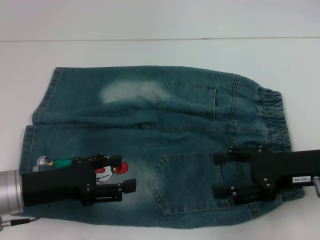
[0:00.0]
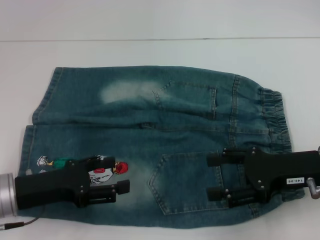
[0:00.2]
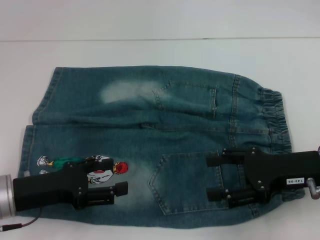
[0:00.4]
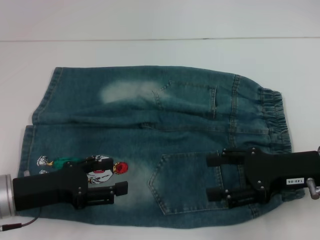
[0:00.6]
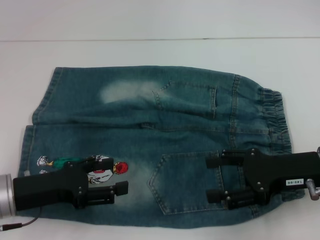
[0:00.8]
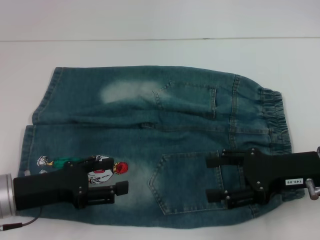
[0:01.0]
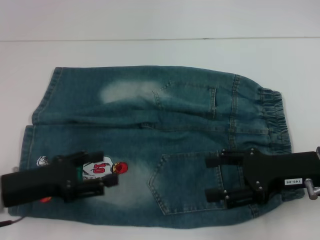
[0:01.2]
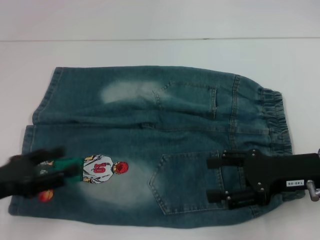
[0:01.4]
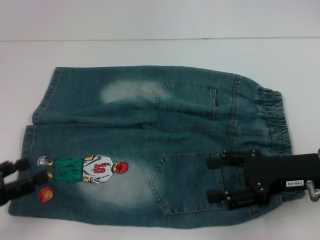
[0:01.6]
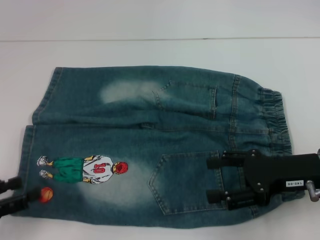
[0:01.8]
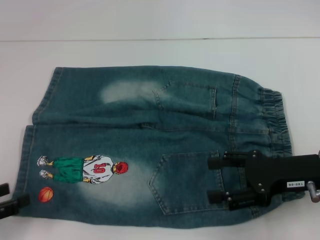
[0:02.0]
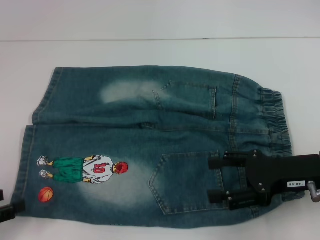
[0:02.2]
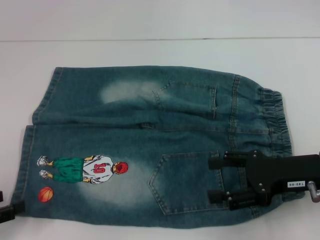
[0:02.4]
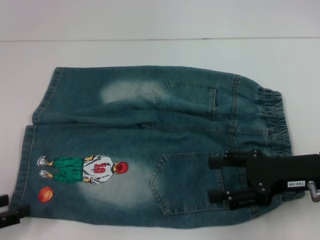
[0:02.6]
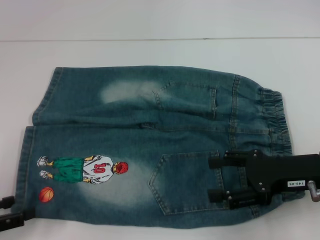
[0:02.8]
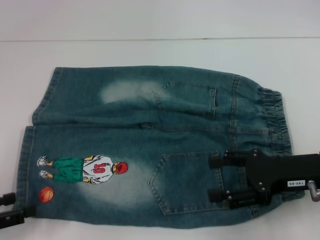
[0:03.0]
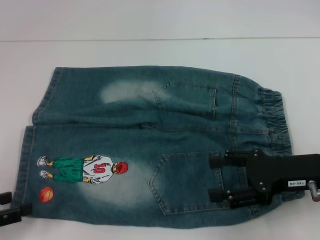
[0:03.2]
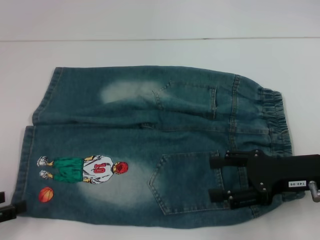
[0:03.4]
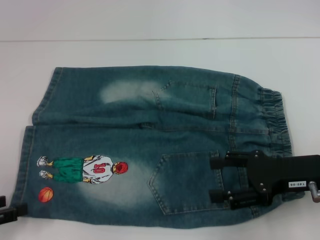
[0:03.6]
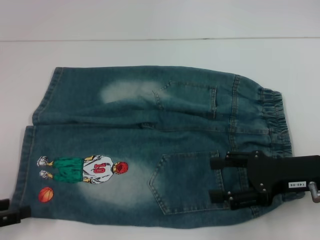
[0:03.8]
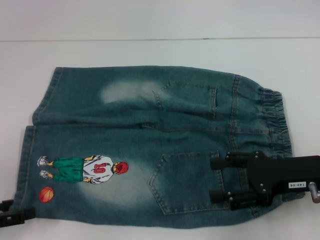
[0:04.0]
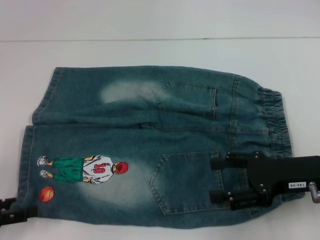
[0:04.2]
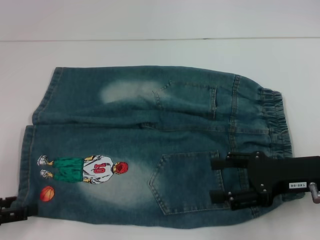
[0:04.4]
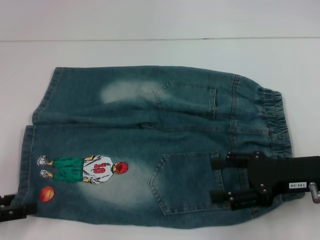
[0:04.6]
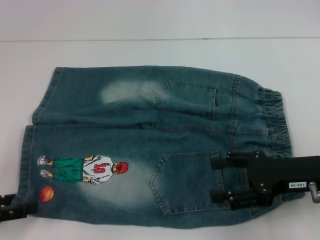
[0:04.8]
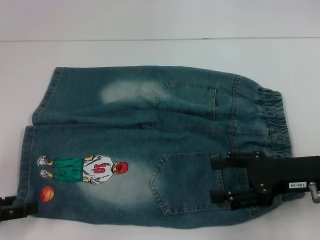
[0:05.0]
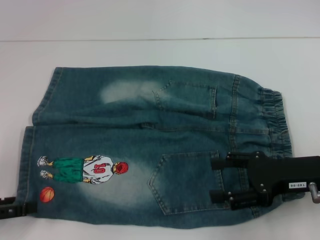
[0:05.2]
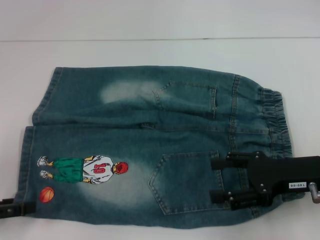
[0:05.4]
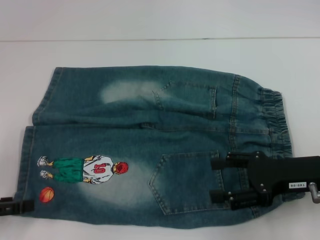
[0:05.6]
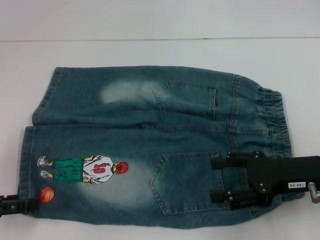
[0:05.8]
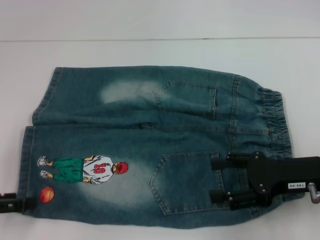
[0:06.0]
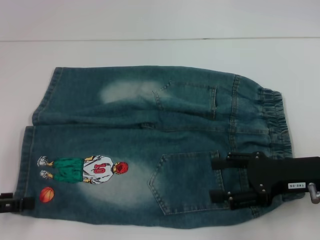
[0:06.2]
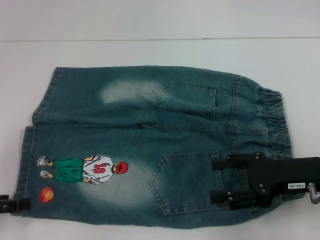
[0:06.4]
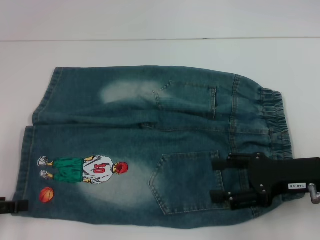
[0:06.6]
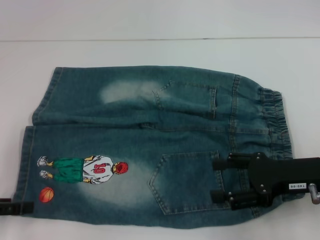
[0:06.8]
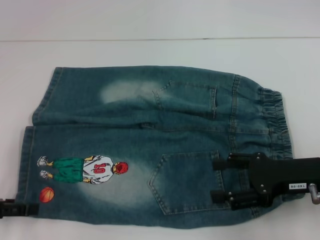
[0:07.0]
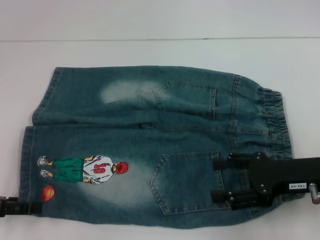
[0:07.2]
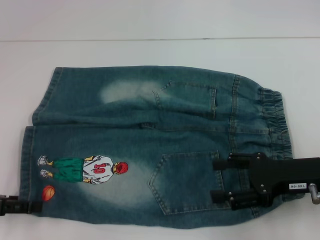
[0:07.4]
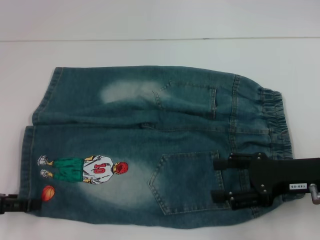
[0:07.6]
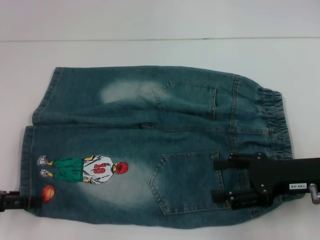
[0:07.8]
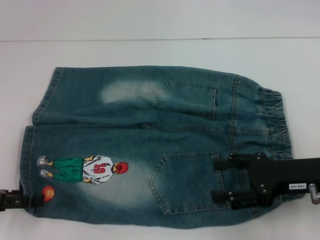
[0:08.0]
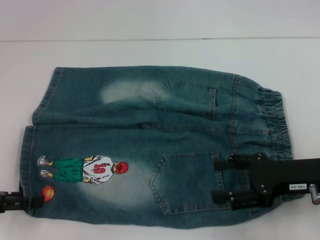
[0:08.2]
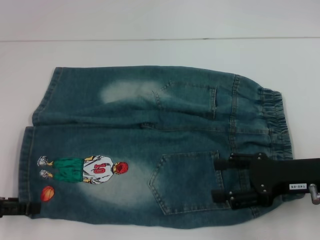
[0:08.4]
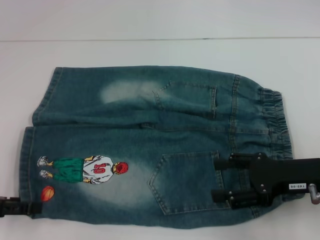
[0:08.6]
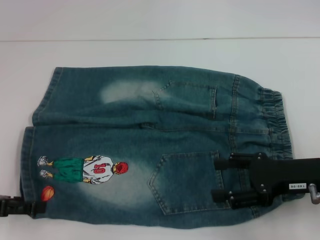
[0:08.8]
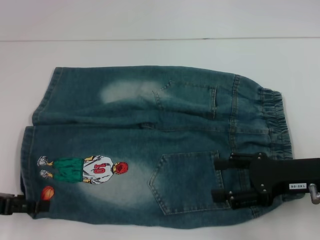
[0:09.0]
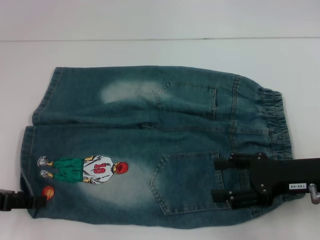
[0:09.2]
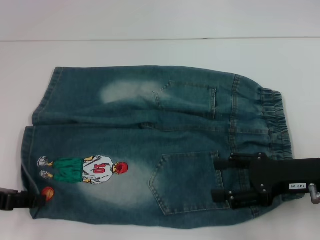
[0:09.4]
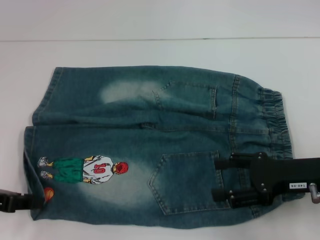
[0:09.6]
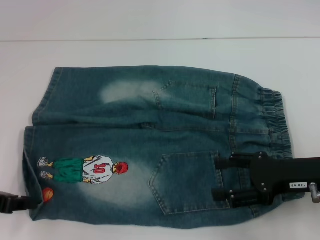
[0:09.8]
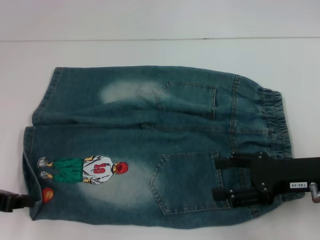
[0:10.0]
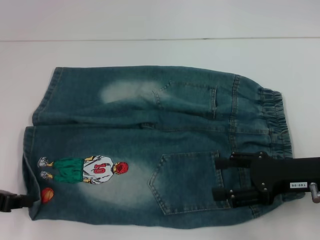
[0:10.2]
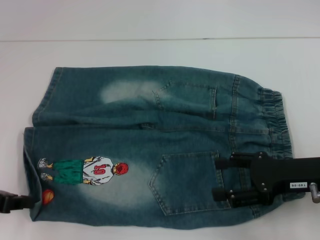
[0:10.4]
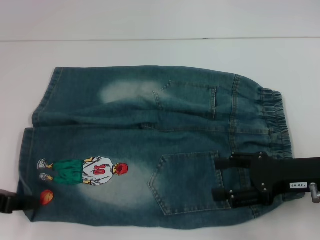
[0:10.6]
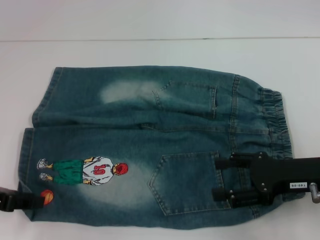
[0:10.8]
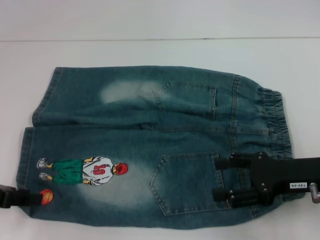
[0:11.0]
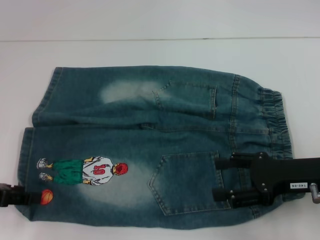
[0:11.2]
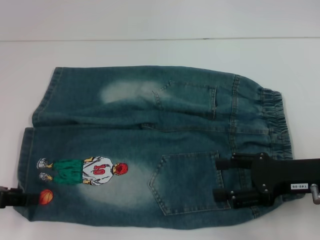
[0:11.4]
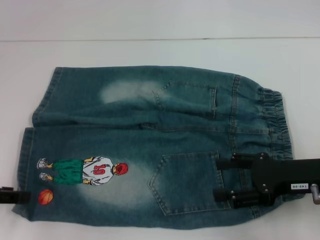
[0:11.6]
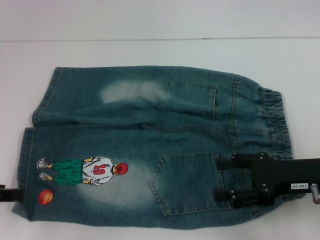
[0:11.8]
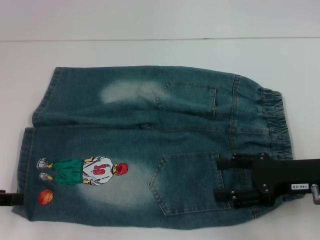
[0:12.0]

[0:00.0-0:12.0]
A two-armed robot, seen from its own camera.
Step, 0:00.0 to 0:10.2: Grab the lower left pant leg with your left hand.
0:00.0 to 0:01.6: The left gripper goes some 10 cm to the left and backward.
0:01.6 to 0:03.0: The grippers stay close to where they were, moving slightly.
0:03.0 to 0:06.0: The grippers stay close to where they were, moving slightly.
0:06.0 to 0:07.6: The grippers move only a little.
0:07.6 to 0:09.0: The two grippers keep their place.
0:09.0 to 0:10.4: The left gripper closes its fingers.
0:10.4 to 0:12.0: The left gripper opens its fingers.

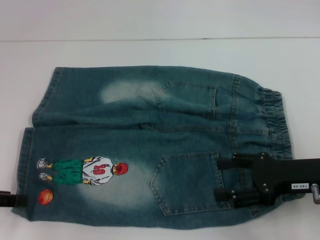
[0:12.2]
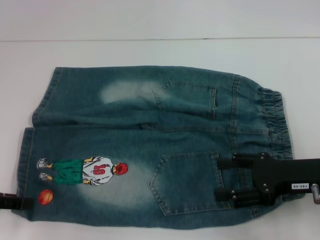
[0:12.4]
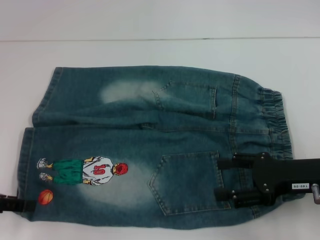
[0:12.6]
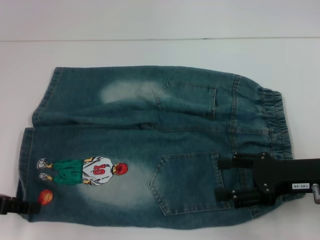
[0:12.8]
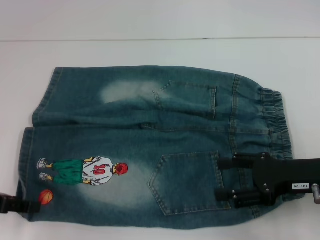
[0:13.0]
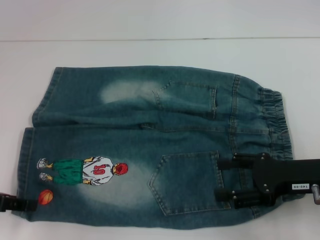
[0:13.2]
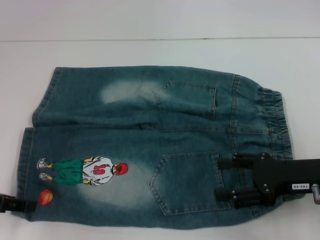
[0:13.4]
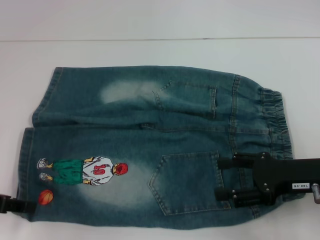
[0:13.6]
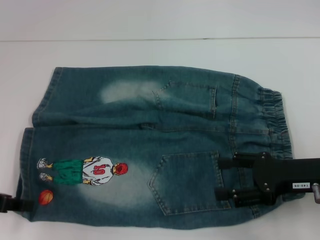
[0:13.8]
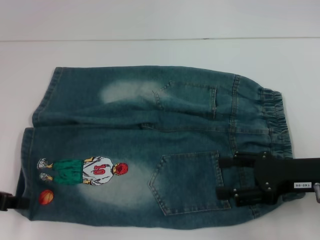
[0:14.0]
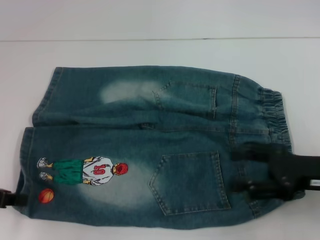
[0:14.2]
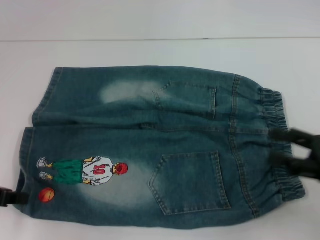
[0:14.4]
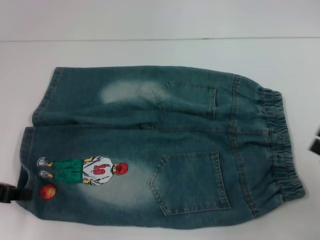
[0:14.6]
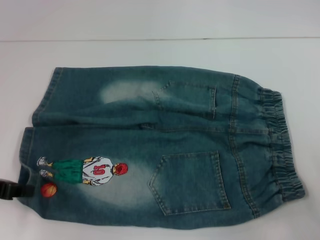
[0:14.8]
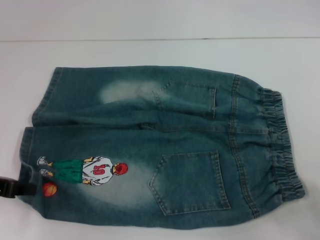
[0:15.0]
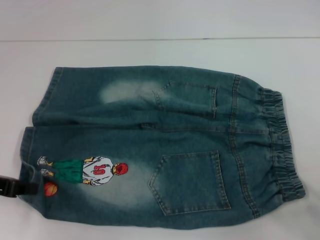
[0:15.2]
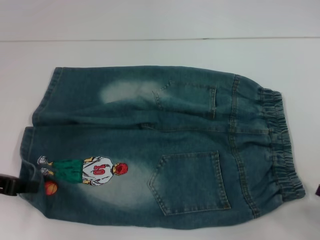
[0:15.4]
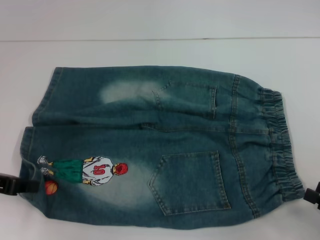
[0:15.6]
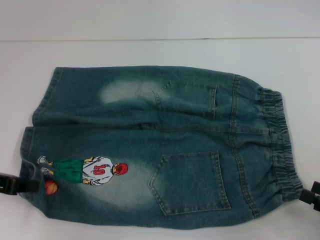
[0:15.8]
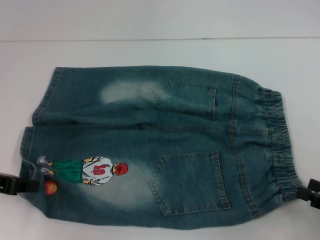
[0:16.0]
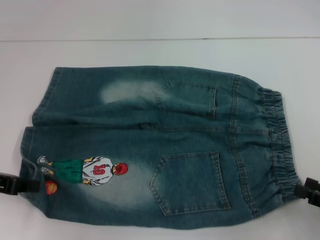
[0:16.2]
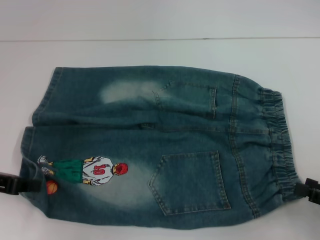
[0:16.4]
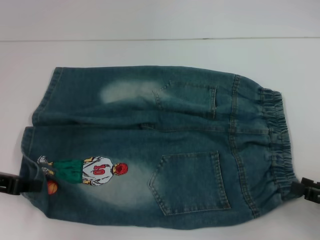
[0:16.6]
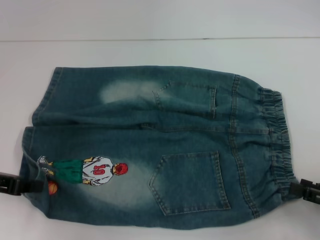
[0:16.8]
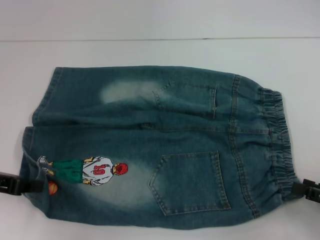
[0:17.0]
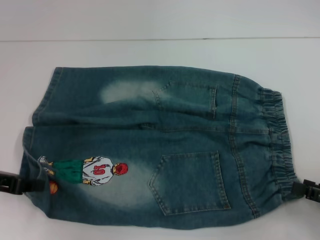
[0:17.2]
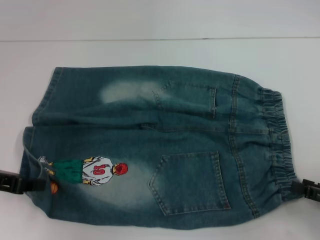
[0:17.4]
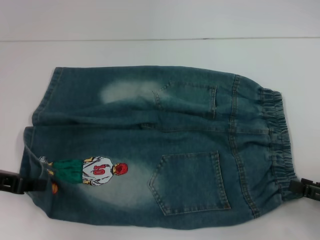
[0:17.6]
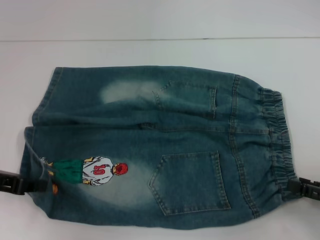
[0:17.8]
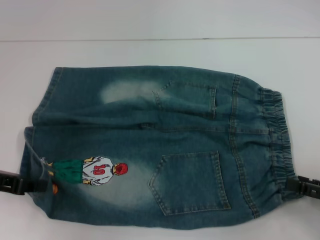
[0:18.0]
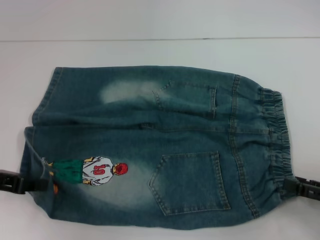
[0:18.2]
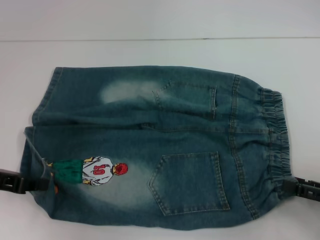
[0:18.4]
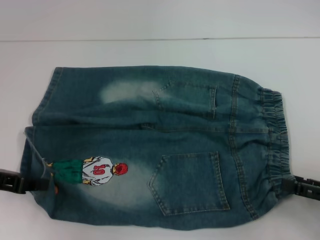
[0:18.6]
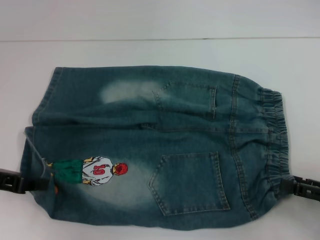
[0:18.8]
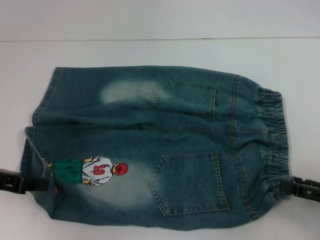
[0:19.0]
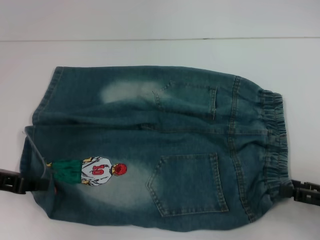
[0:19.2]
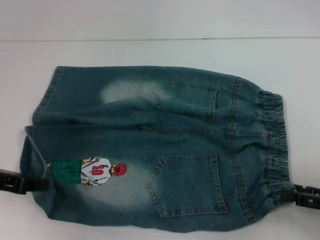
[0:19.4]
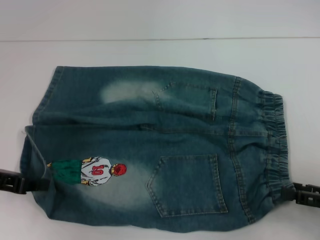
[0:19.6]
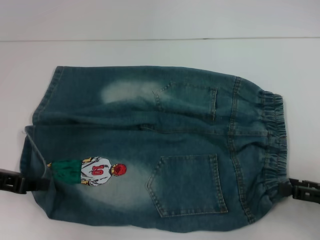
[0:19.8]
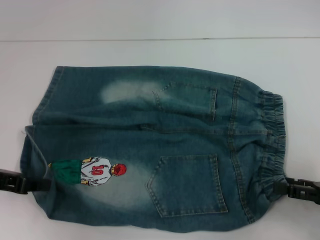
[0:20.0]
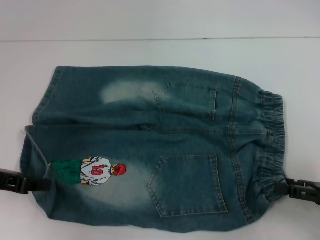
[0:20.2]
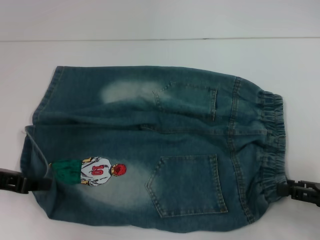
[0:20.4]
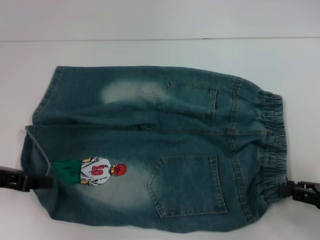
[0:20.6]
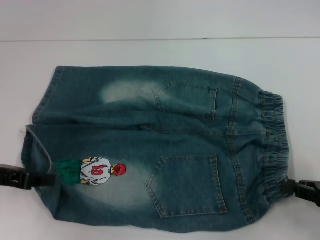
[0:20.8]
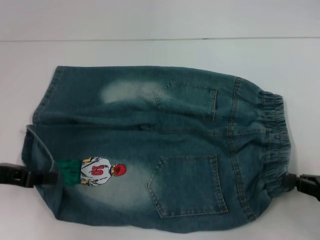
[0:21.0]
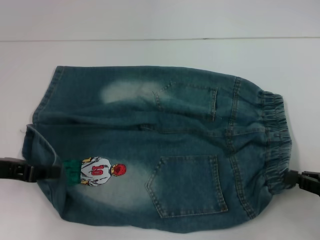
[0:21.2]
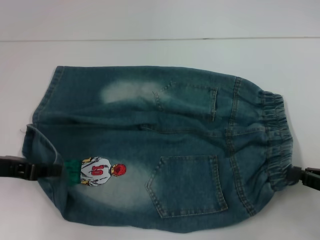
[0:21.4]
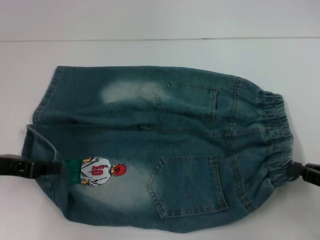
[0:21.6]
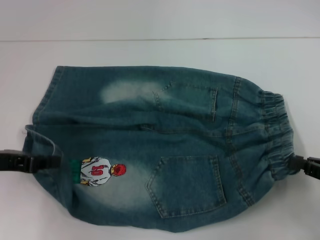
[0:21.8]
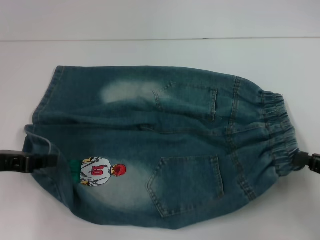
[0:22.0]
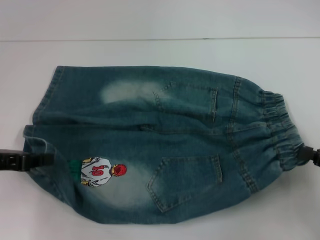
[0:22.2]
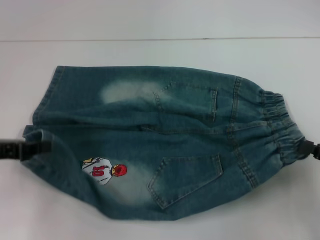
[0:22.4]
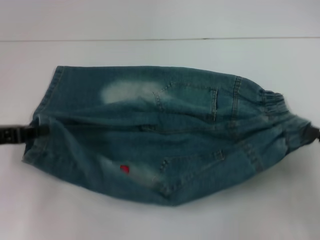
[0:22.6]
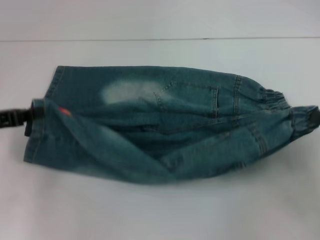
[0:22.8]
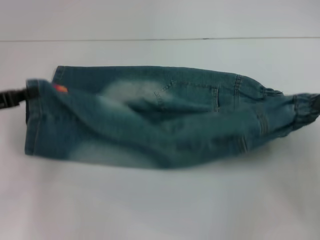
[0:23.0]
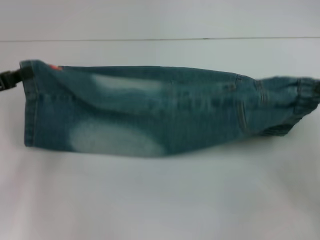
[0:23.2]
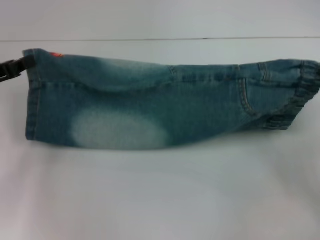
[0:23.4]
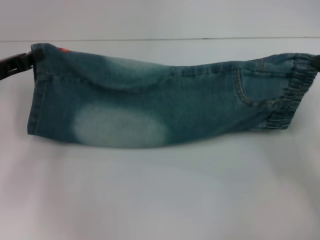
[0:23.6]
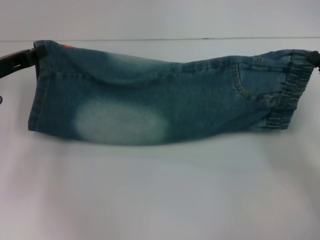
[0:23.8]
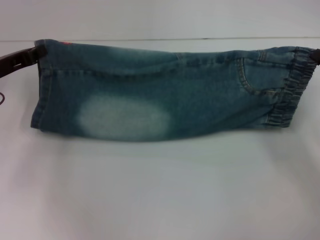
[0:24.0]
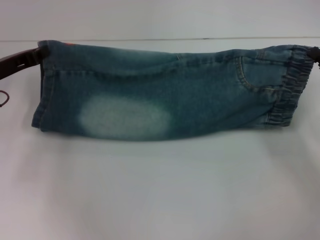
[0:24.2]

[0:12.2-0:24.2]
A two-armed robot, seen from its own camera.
Step, 0:12.2 to 0:18.2: Hold the lower right waistband with your right hand.
0:13.8 to 0:15.2: The right gripper heads backward and to the right, covering approximately 20 cm; the left gripper closes.
0:15.2 to 0:16.6: The grippers make only small movements.
0:16.6 to 0:19.8: The grippers stay close to where they were, moving slightly.
0:19.8 to 0:21.2: The right gripper closes up.
0:22.6 to 0:24.2: The grippers both shift forward by roughly 10 cm.
